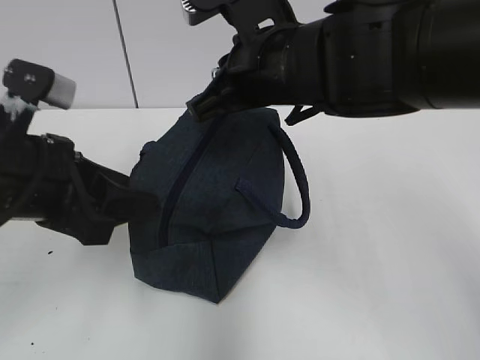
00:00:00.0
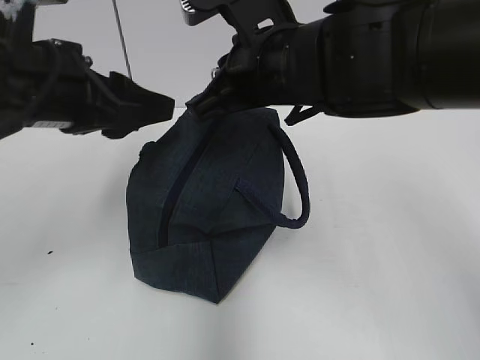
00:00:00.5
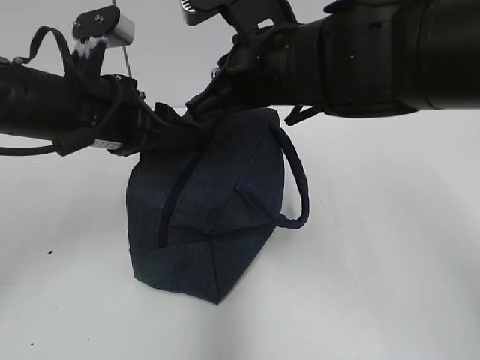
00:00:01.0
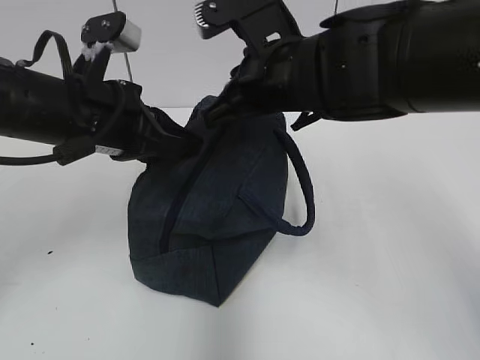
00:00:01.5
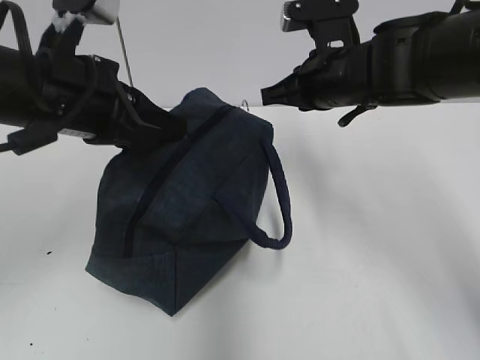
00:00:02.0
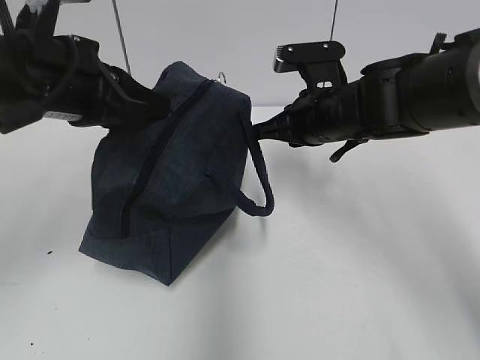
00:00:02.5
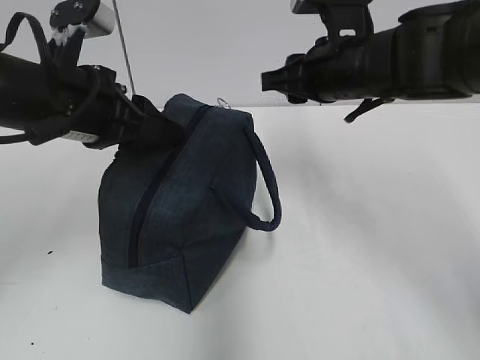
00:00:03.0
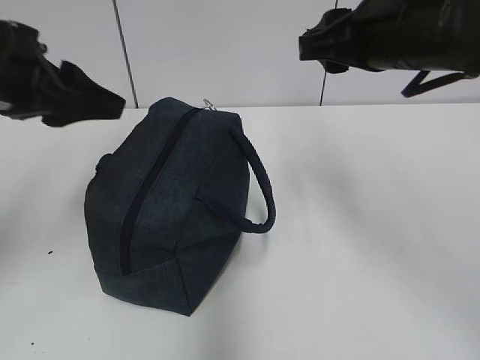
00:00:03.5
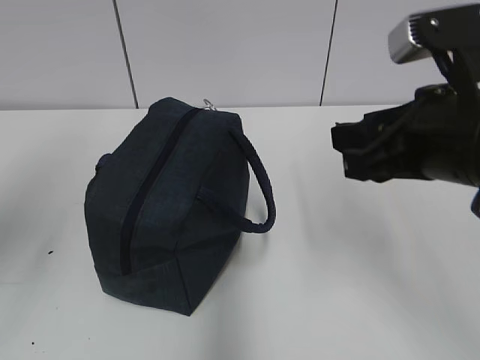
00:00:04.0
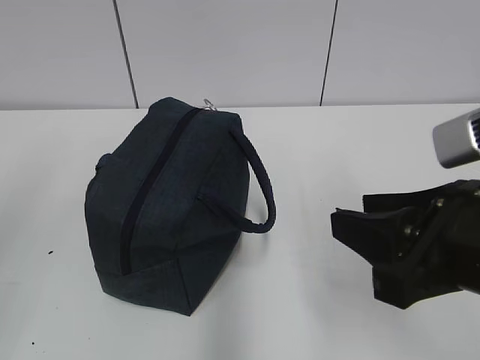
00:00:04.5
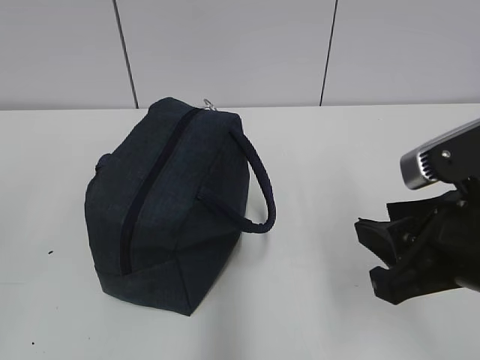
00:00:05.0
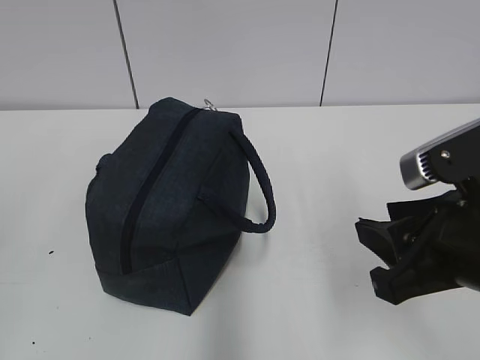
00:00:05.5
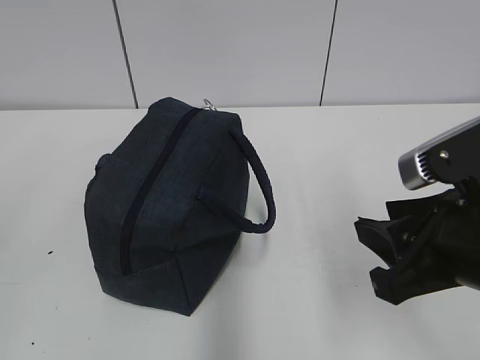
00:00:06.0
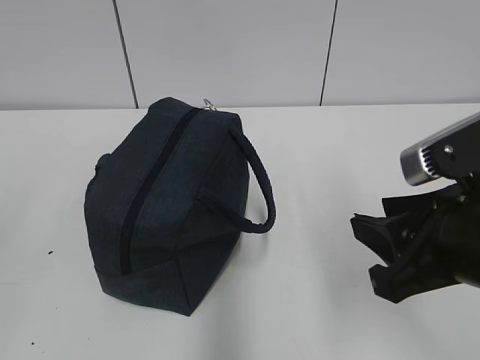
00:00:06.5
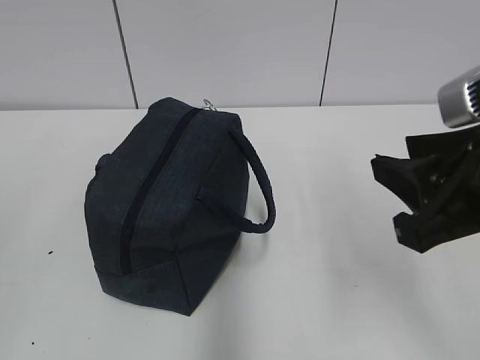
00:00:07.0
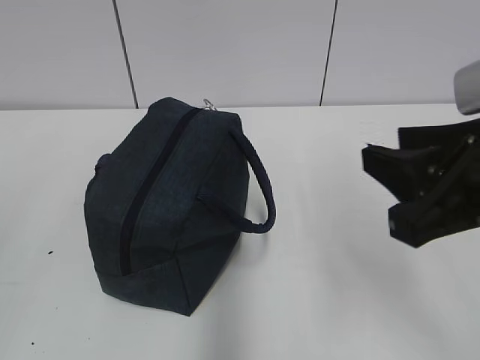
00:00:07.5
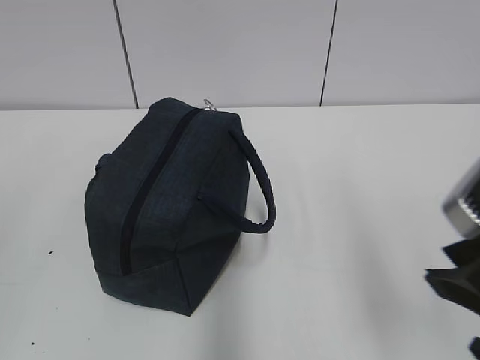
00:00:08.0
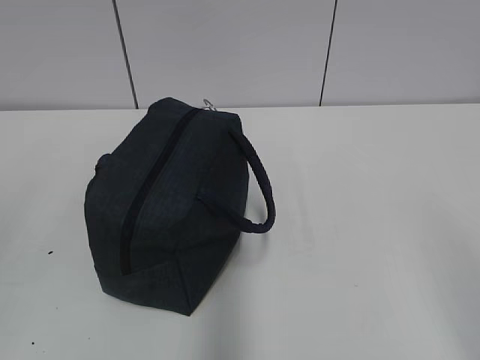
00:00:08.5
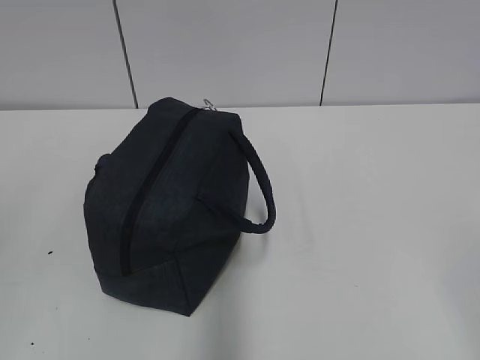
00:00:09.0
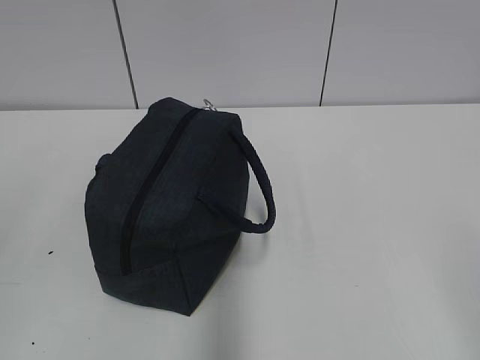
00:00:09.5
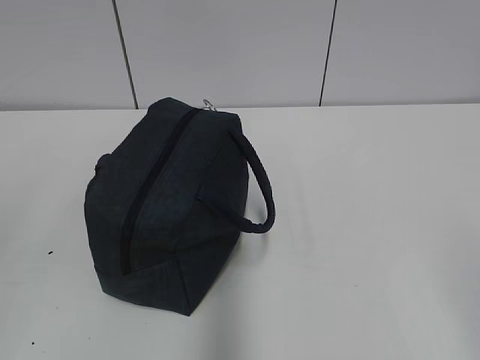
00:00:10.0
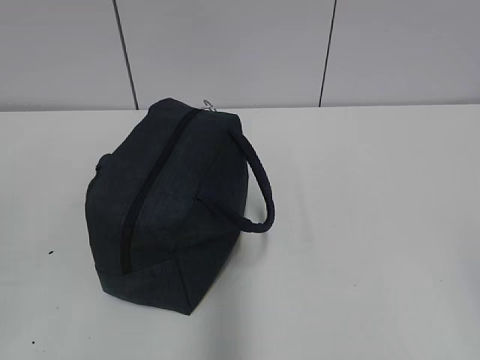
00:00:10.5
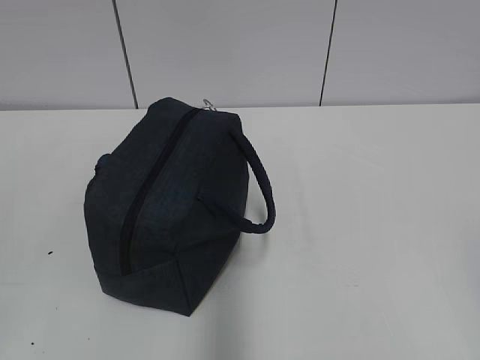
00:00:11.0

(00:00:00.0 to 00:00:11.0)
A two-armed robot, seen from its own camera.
Step, 00:00:00.0 - 00:00:01.5: Pull the zipper with your right hand.
Step, 00:00:02.0 - 00:00:03.0: Grab the lunch bag with your left hand.
00:00:00.0 - 00:00:02.0: The left gripper moves forward, roughly 5 cm, and closes; the right gripper moves forward, to the right and downward, about 10 cm.
00:00:02.0 - 00:00:03.5: The left gripper travels to the left by approximately 5 cm, and opens its fingers. The right gripper travels backward and upward by roughly 10 cm, and opens its fingers.
00:00:03.5 - 00:00:05.5: The right gripper heads backward and downward, covering roughly 15 cm; the left gripper is displaced backward and to the left by roughly 25 cm.
00:00:05.5 - 00:00:07.5: The grippers move only a little.
00:00:07.5 - 00:00:09.0: The right gripper heads backward and to the right, covering some 20 cm.

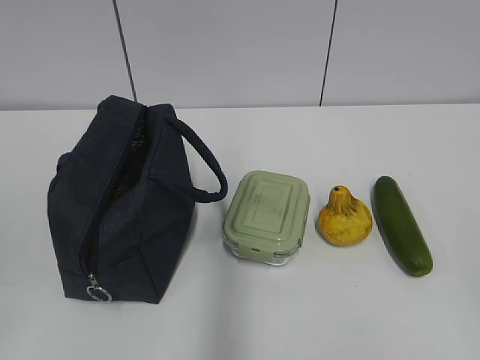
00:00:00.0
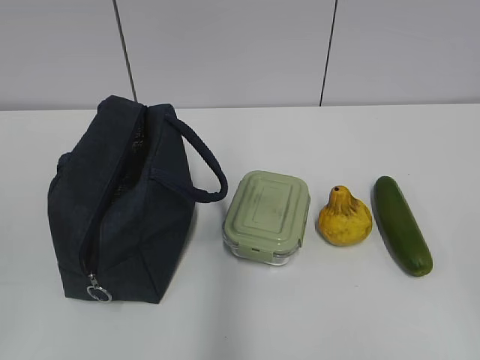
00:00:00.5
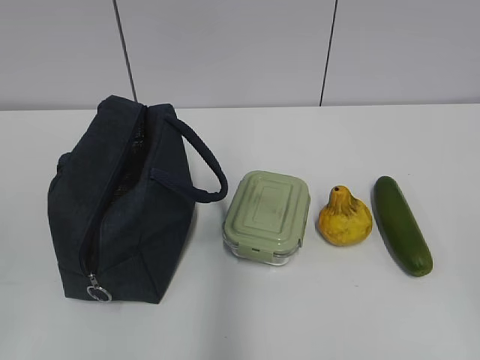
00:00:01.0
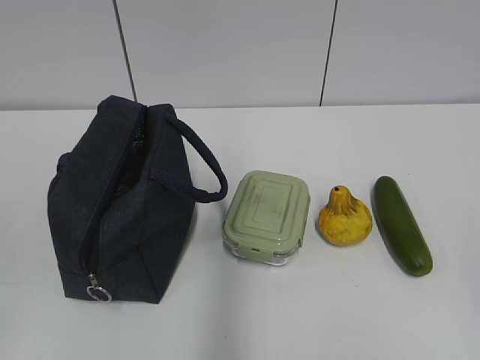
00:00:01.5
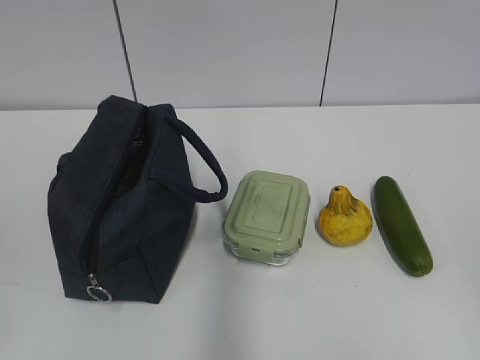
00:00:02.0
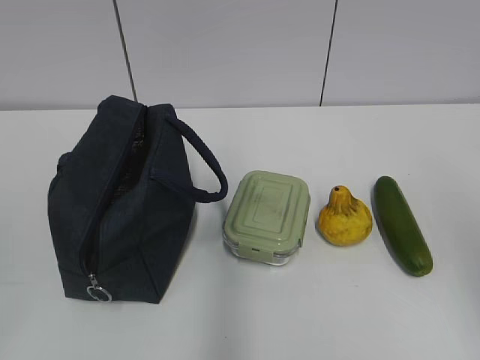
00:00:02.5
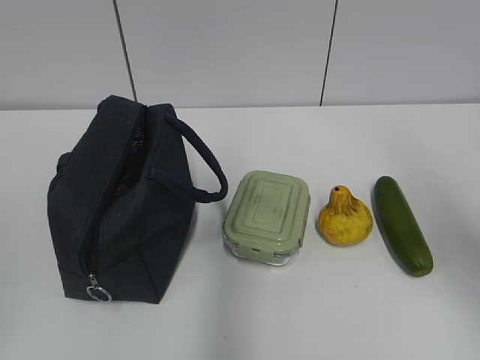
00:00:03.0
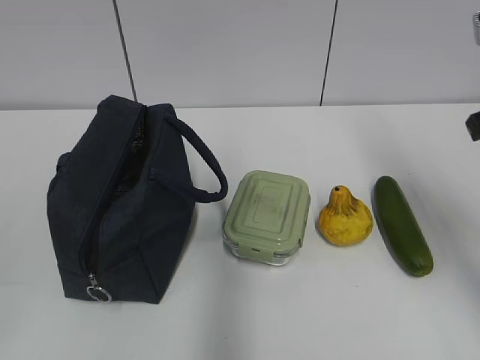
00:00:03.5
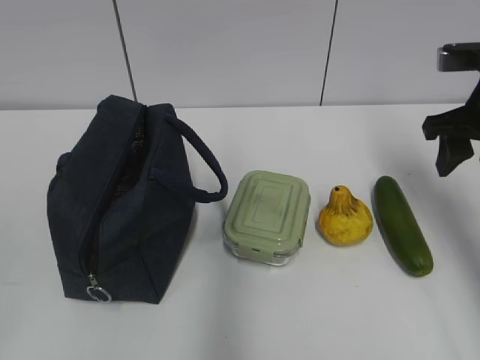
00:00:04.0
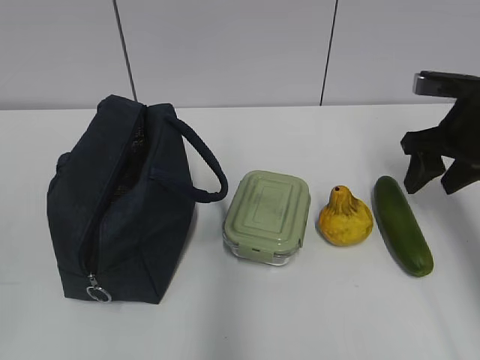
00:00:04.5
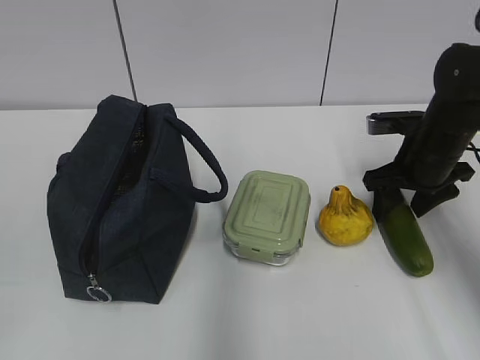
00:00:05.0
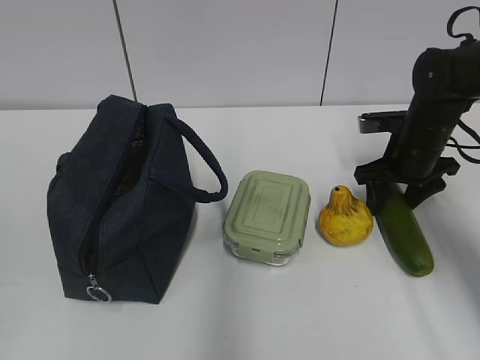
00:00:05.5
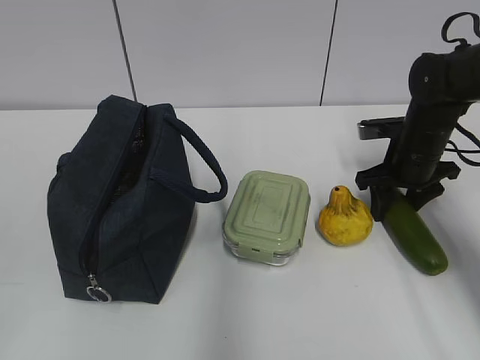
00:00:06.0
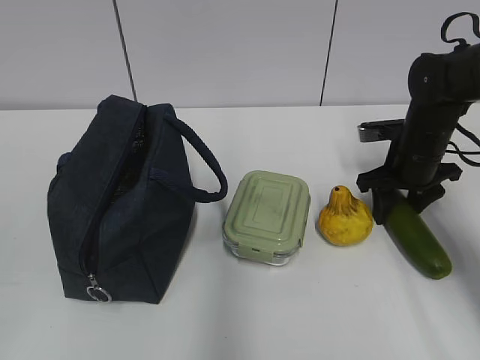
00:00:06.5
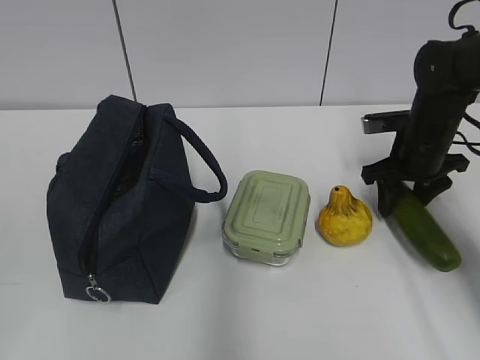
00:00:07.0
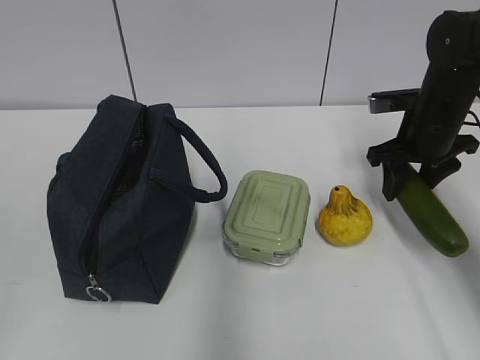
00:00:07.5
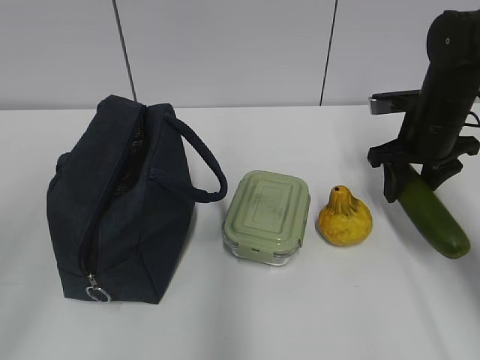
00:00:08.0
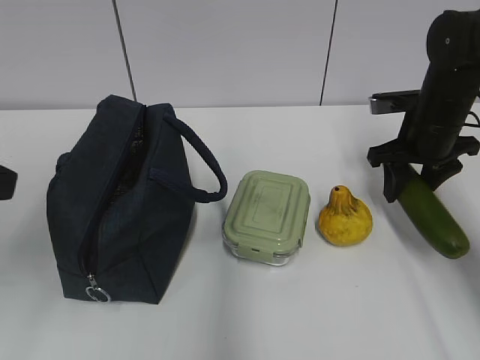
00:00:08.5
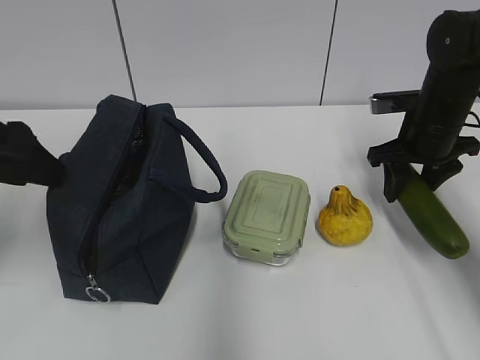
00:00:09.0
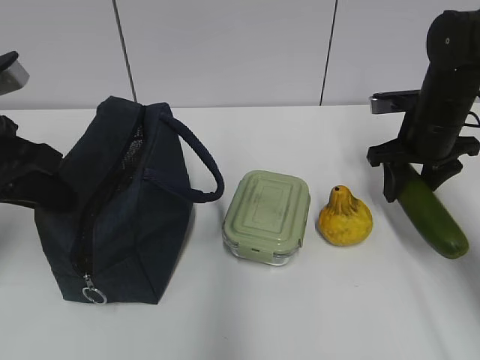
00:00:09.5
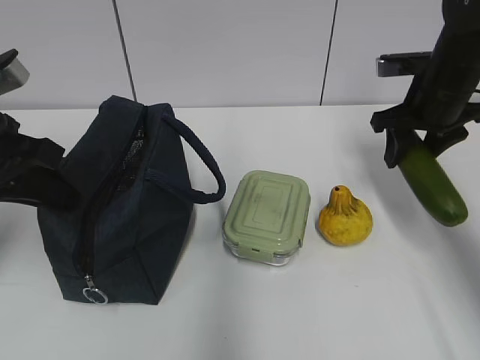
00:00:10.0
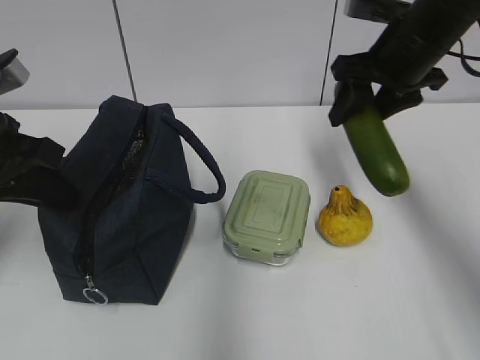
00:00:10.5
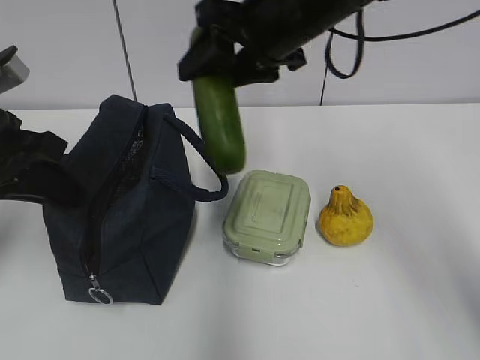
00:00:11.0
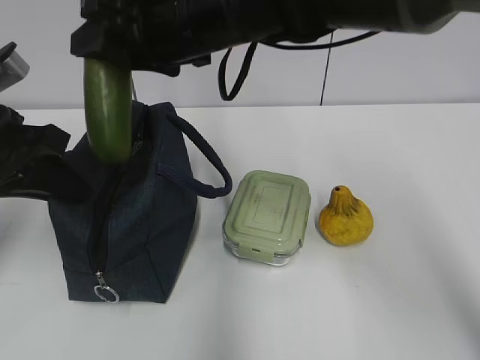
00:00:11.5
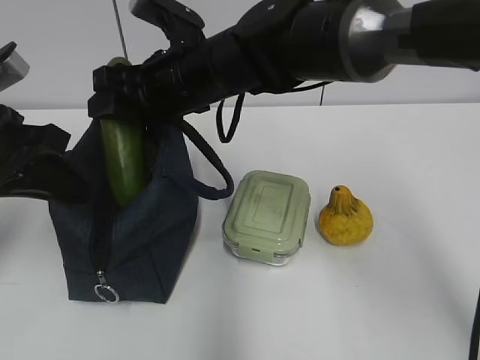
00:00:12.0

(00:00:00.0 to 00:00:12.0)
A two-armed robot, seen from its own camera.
Step, 00:00:00.0 - 00:00:06.0: Grab the cucumber with your right hand.
00:00:02.0 - 00:00:04.0: The right gripper heads forward, covering roughly 35 cm.
00:00:04.0 - 00:00:06.0: The right gripper shifts approximately 15 cm downward and forward.
00:00:06.0 - 00:00:08.0: The right gripper shifts roughly 5 cm upward.
00:00:08.0 - 00:00:10.0: The left gripper shifts roughly 20 cm forward, and closes.
00:00:10.0 - 00:00:12.0: The right gripper goes approximately 30 cm to the left.

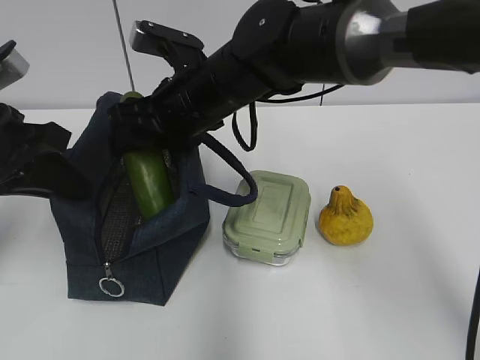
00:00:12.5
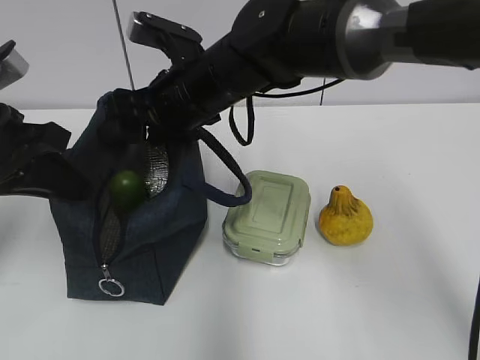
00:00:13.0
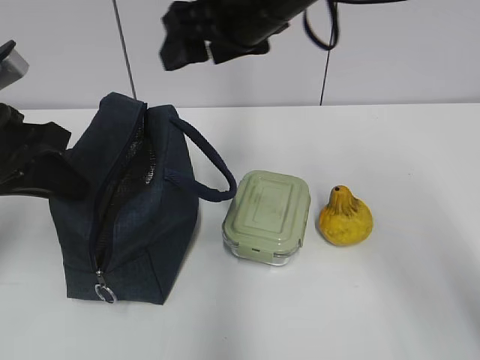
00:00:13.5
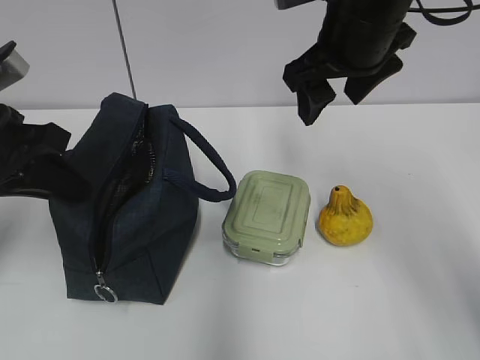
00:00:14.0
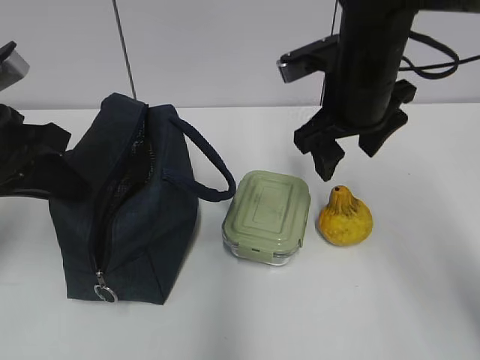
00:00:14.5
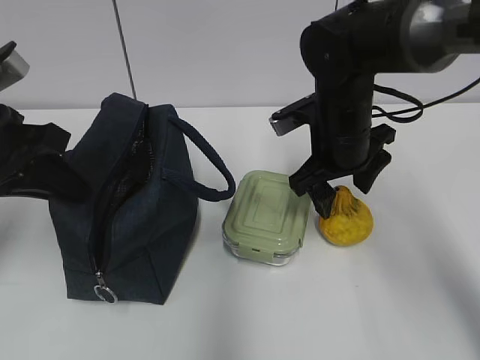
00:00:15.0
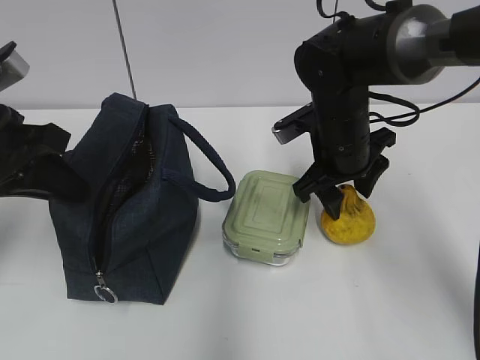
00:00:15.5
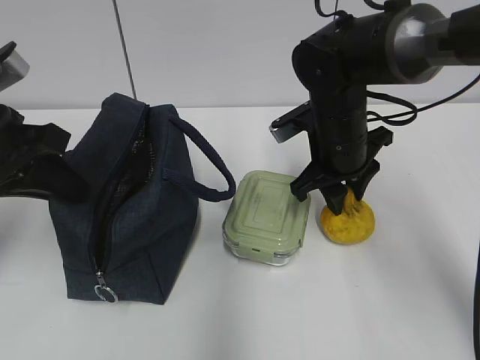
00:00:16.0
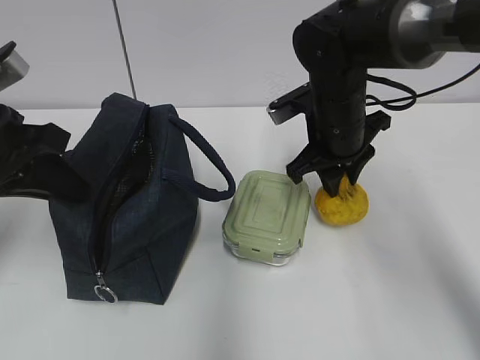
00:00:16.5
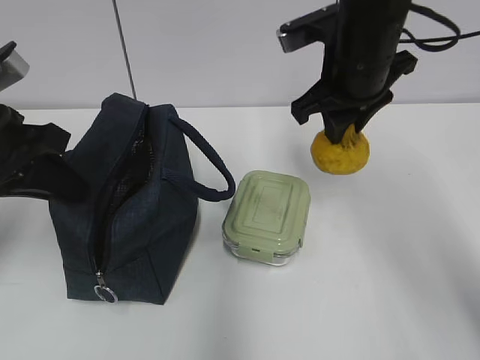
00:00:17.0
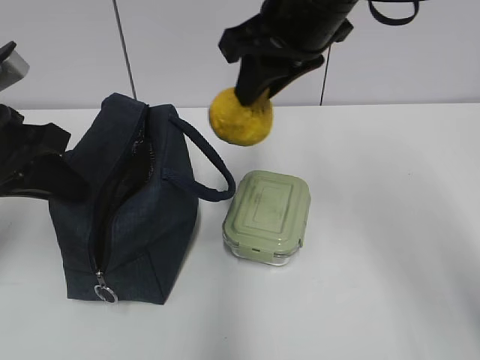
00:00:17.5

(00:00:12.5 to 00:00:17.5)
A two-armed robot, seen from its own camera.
Step, 00:00:12.5 - 00:00:13.0: Place it into the bag with your right hand.
Step, 00:00:13.5 - 00:00:16.0: Grab the pear with your right hand.
00:00:12.5 - 00:00:15.0: The right gripper is displaced to the right by about 15 cm.
00:00:15.0 - 00:00:17.5: The right gripper heads upward, covering approximately 15 cm, and closes.
